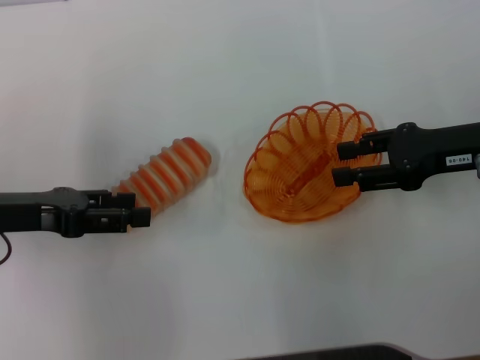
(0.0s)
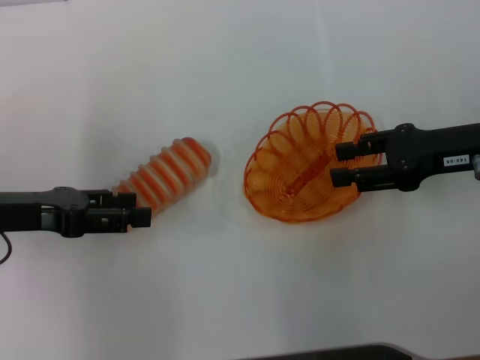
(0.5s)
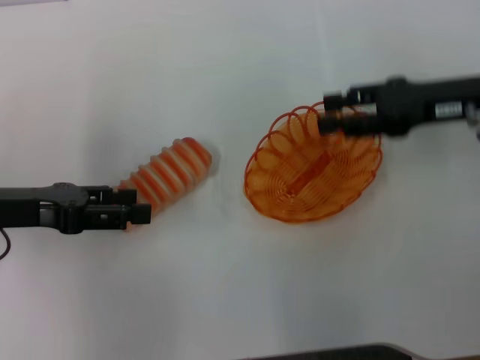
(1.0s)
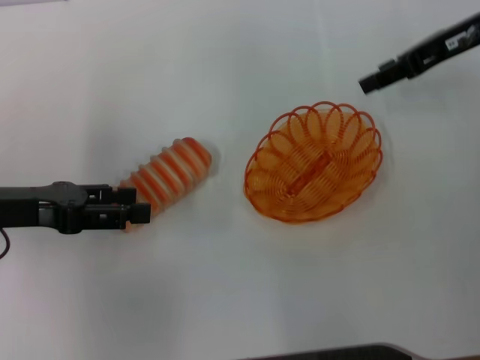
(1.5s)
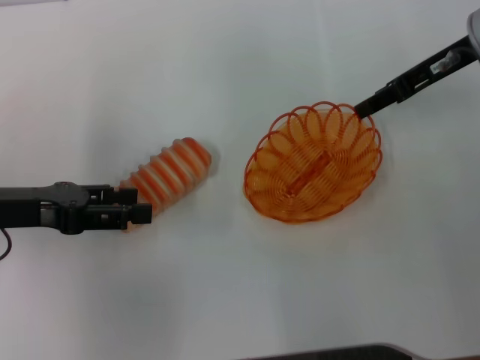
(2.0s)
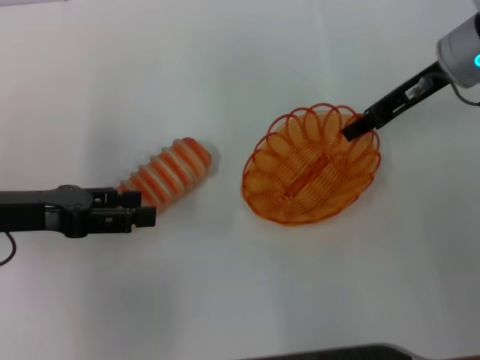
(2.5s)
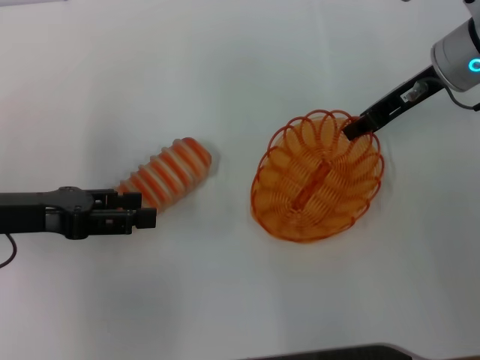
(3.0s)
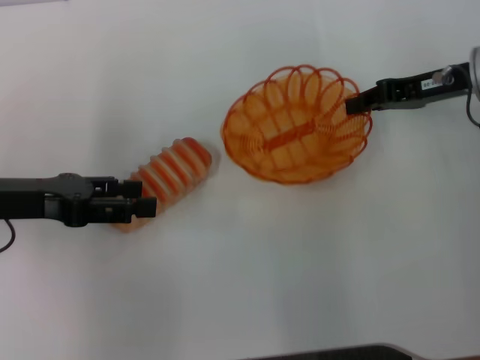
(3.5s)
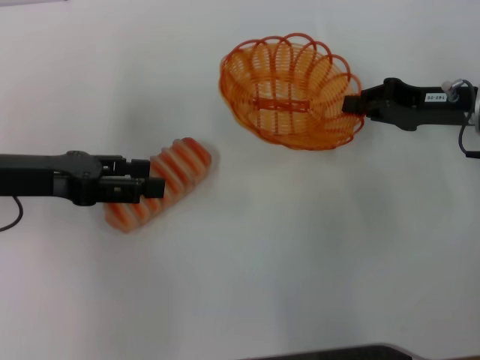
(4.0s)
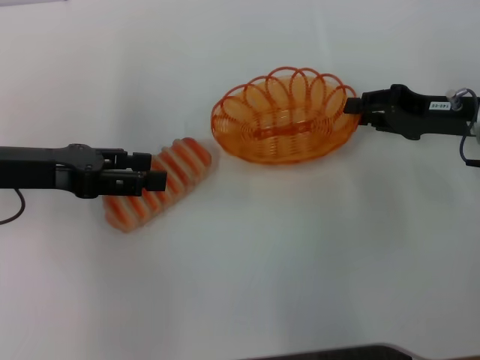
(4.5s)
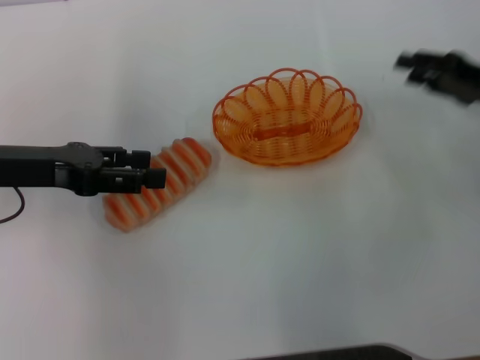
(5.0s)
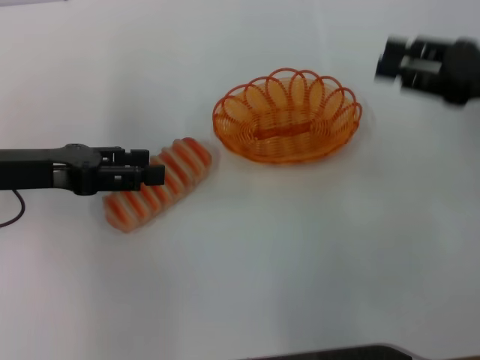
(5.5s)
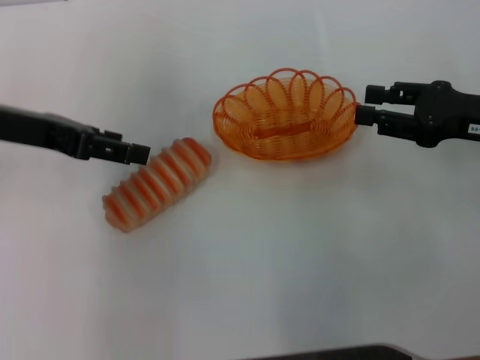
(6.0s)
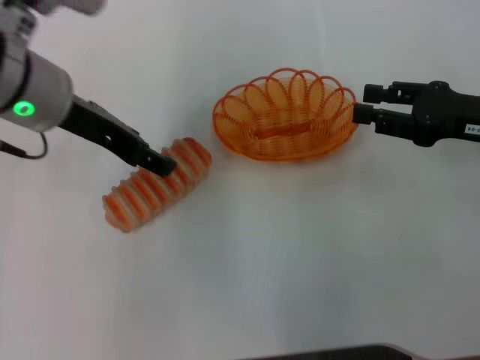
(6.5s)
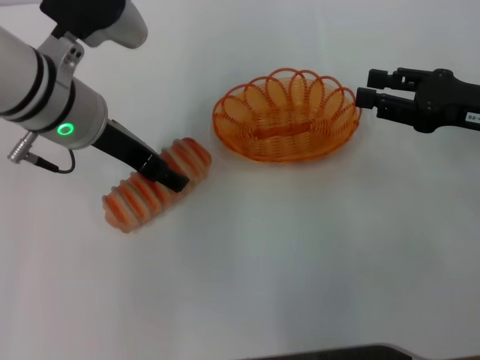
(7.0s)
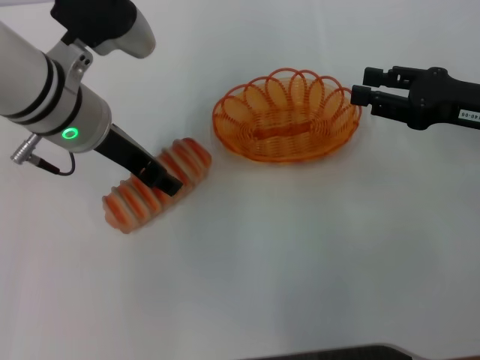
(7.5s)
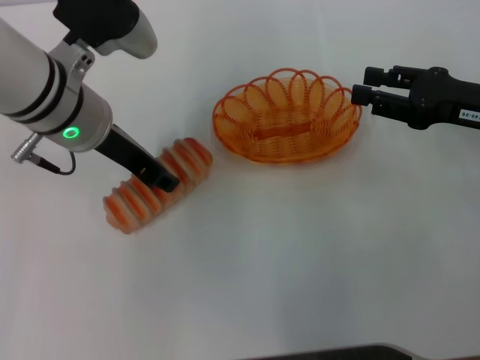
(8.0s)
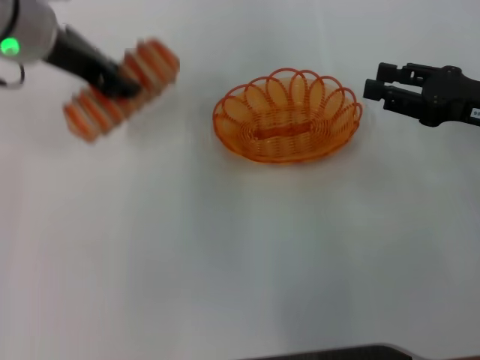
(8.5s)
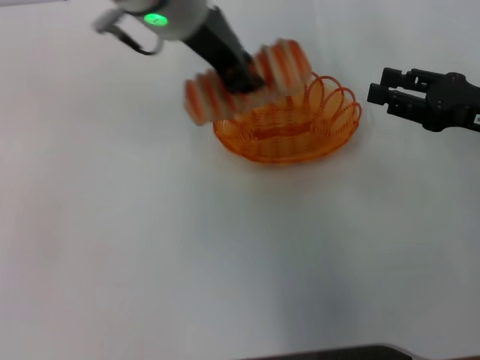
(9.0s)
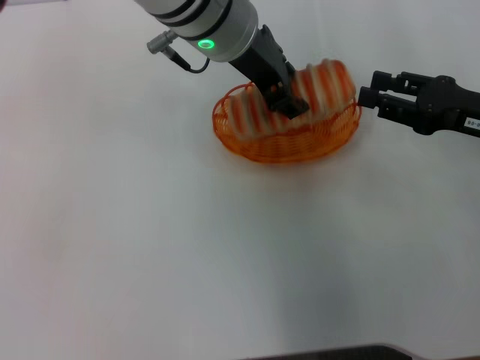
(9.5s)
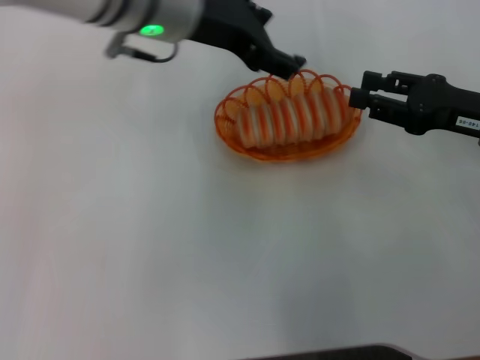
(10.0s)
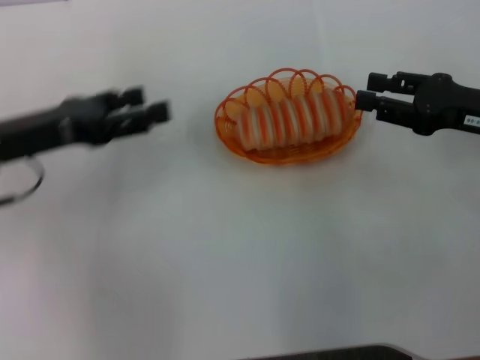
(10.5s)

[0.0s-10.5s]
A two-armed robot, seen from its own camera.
Step, 0.0s to 3.0s: Pick up the basket with the right gripper.
Step, 3.5s to 4.5s: Place the basket in the center of view with the right gripper.
Step, 5.0s to 8.0s: Pick up the long bread with the left gripper.
Step, 8.5s to 9.5s: Place the long bread into the basket with the left gripper.
0.0s to 2.0s: The right gripper is displaced forward and upward by some 10 cm.
2.0s to 4.0s: The right gripper goes approximately 10 cm downward and backward, and closes.
4.0s to 6.5s: The left gripper goes roughly 10 cm to the right and upward; the right gripper shifts by approximately 5 cm, and opens.
6.5s to 8.5s: The left gripper closes up.
8.5s to 10.5s: The left gripper goes approximately 15 cm downward, to the left and backward, and opens.
